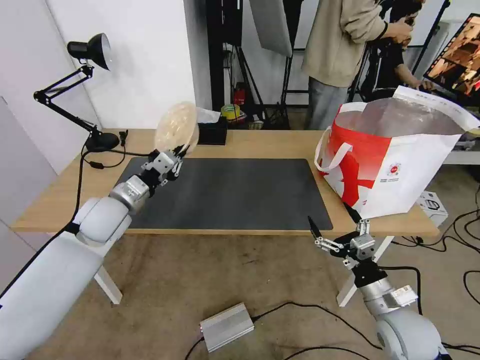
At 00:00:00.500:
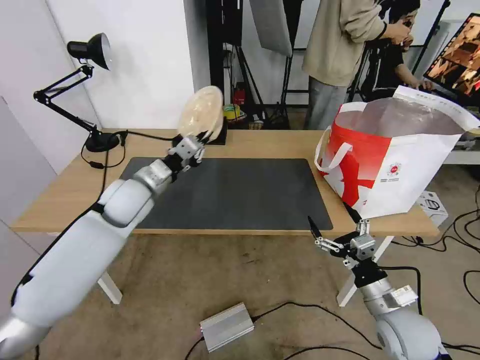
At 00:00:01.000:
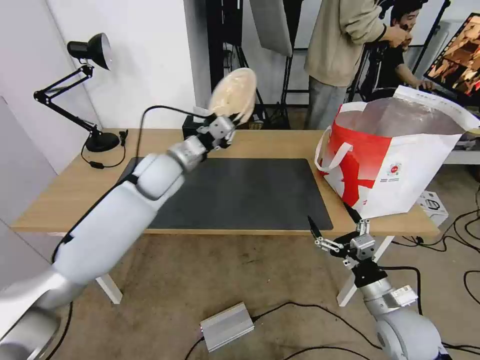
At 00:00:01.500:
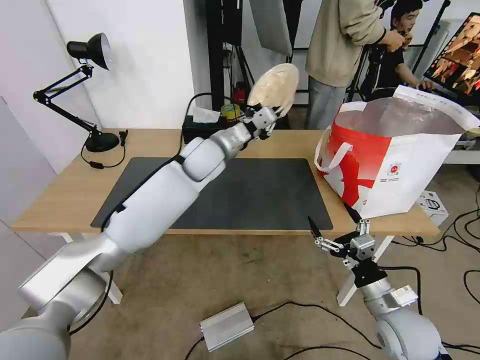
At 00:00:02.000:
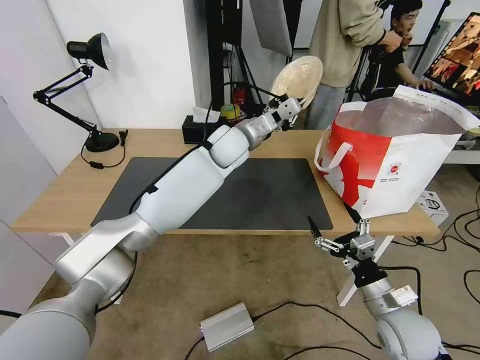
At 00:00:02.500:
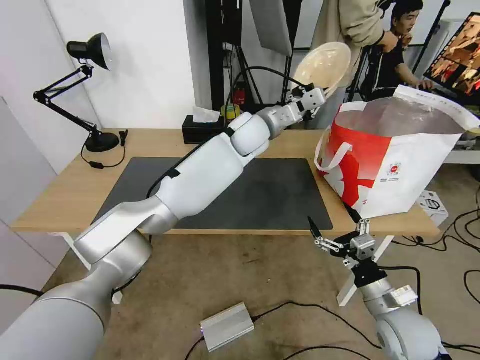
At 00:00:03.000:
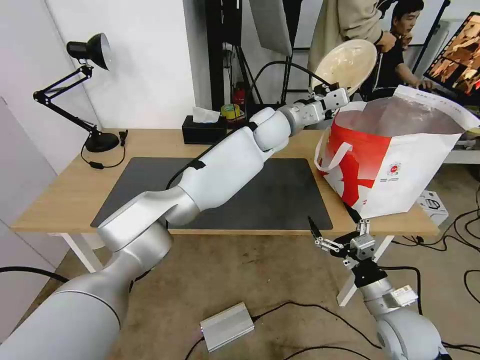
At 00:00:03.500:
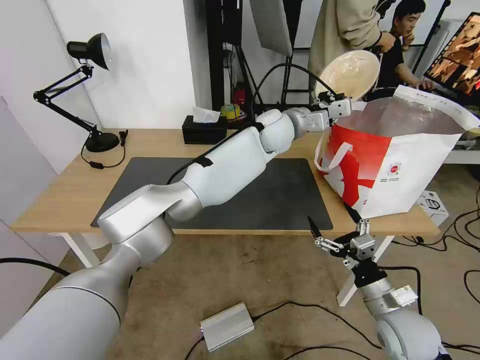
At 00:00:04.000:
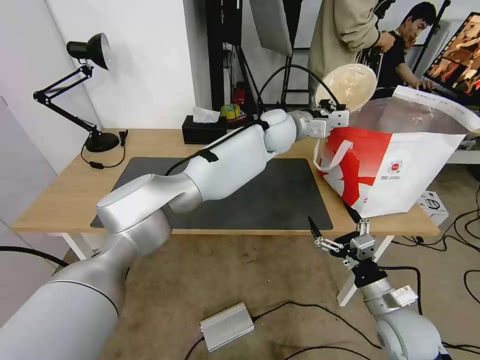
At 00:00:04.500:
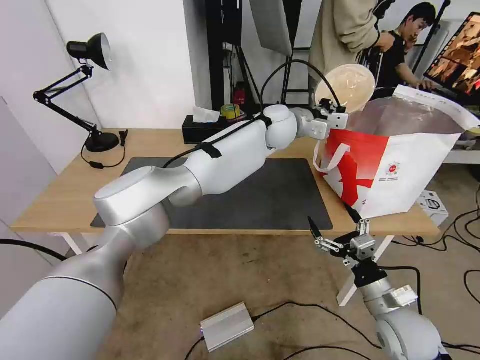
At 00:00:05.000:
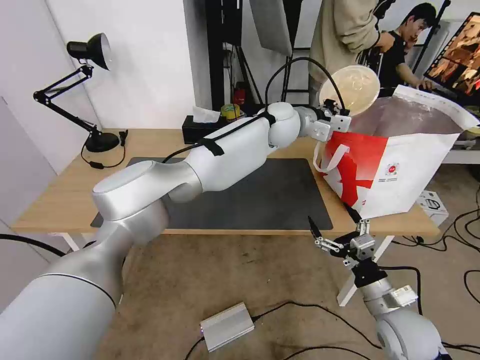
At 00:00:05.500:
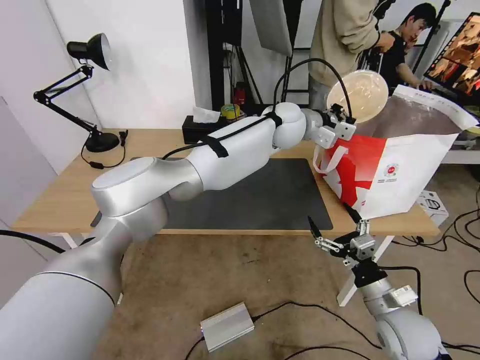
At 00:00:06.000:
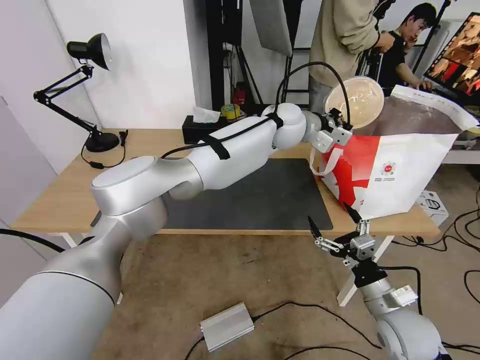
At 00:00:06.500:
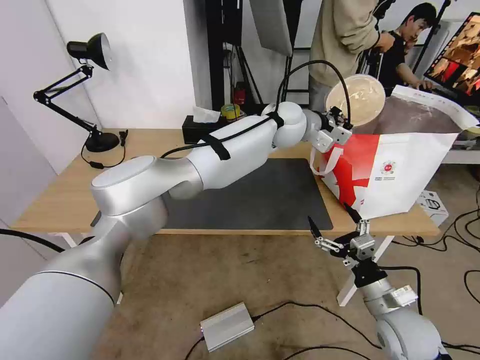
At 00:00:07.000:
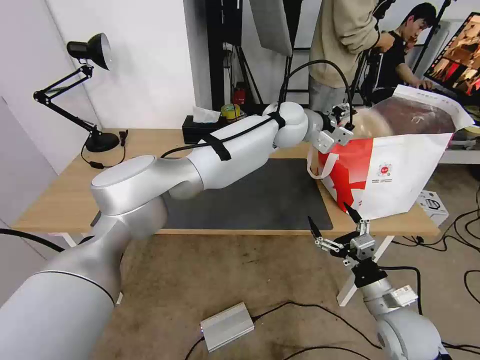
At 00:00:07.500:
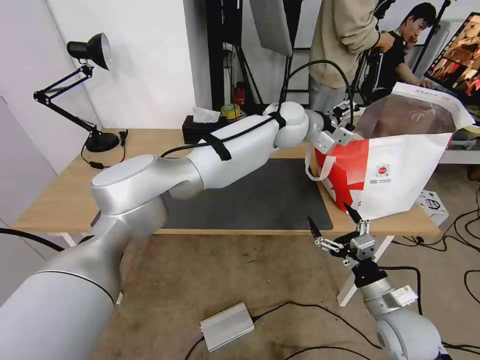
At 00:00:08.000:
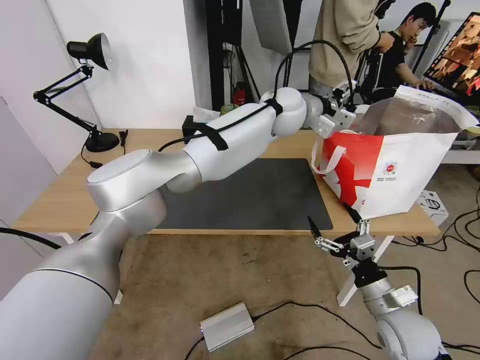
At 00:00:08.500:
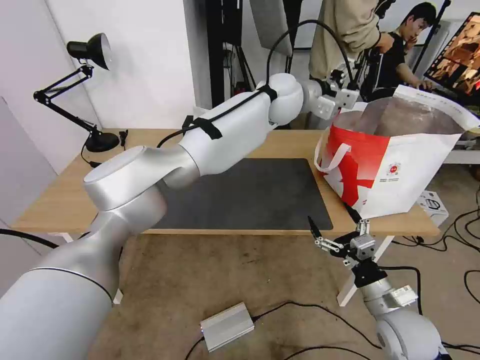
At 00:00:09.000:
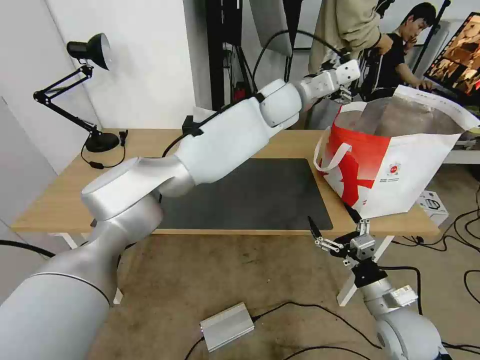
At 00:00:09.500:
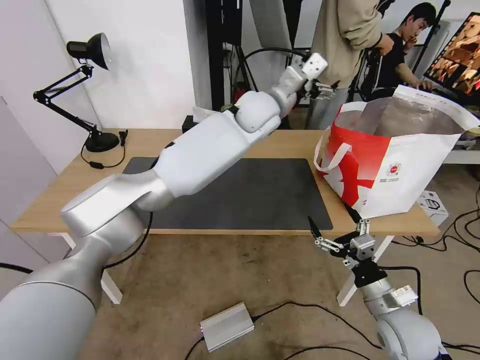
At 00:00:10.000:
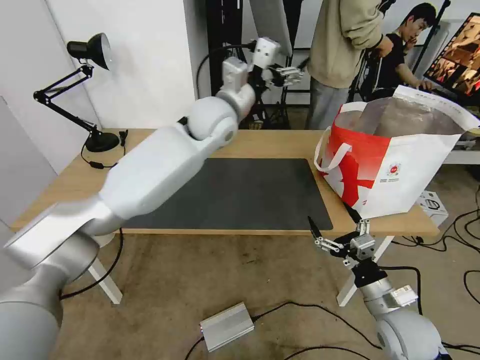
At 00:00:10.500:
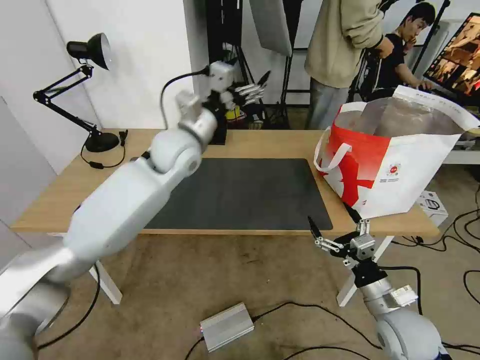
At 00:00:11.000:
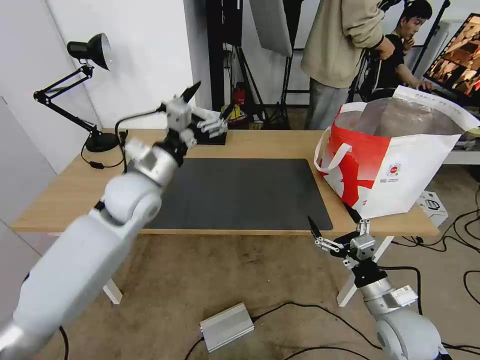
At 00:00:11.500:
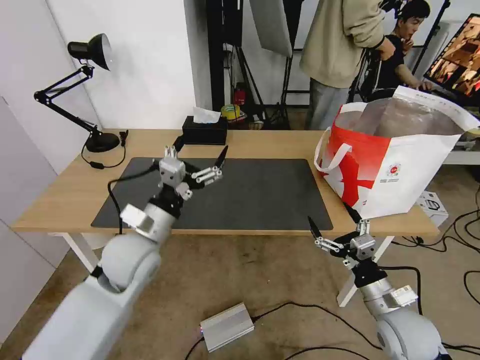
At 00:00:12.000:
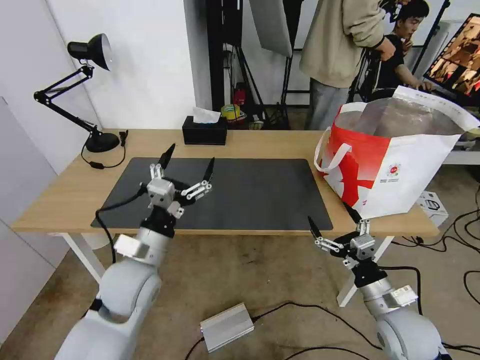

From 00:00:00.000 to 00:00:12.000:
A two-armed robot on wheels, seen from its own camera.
Task of the whole recording: Pick up the trash from the table and place it into the takeout bag.
From 00:00:00.000 to 00:00:02.000: The left gripper moves to the right and forward, roughly 30 cm.
From 00:00:02.000 to 00:00:04.000: The left gripper goes some 10 cm to the right.
From 00:00:06.000 to 00:00:08.000: The left gripper opens.
From 00:00:08.000 to 00:00:10.000: The left gripper moves to the left, some 15 cm.
From 00:00:10.000 to 00:00:12.000: The left gripper moves backward, downward and to the left, about 35 cm.

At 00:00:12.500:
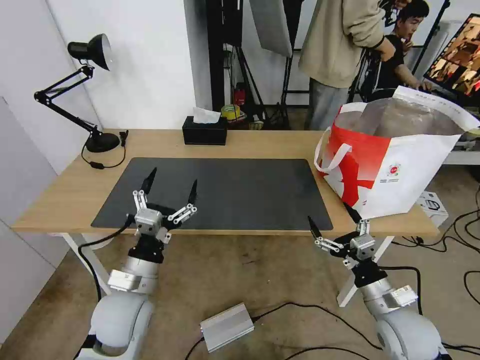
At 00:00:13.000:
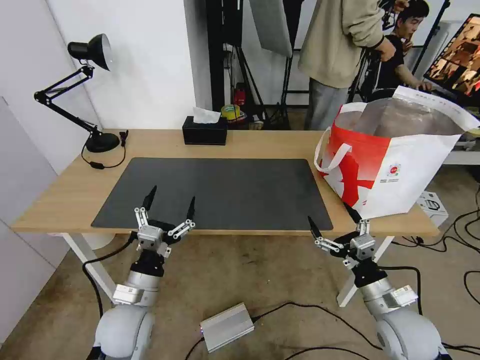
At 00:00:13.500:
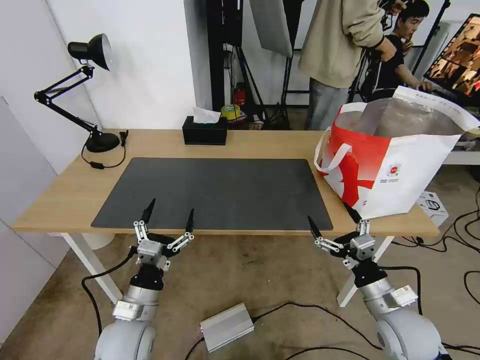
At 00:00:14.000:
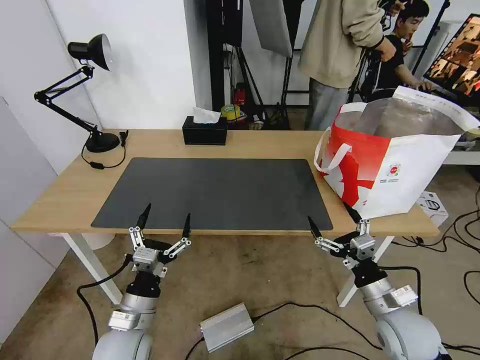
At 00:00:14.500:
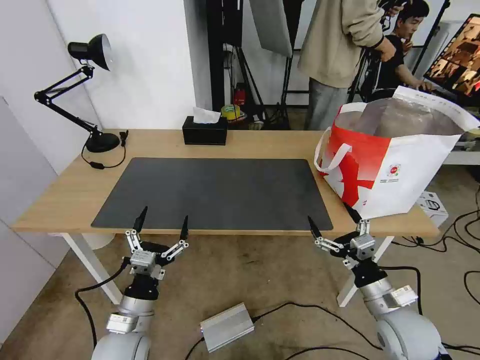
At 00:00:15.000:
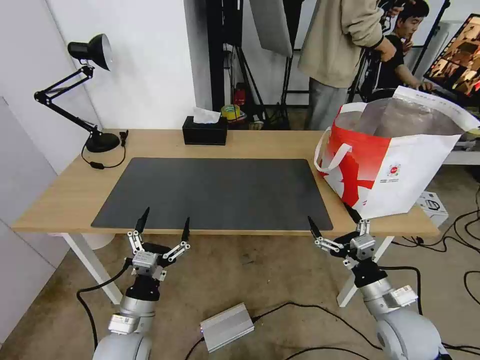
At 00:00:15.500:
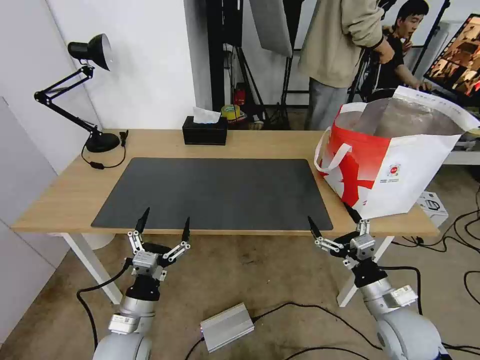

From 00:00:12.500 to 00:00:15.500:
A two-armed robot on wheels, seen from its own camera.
Task of the whole recording: Pick up the trash from the table and place it into the takeout bag.
From 00:00:12.500 to 00:00:14.000: The left gripper travels downward by about 5 cm.
From 00:00:14.000 to 00:00:15.500: Both grippers stay about where they are.

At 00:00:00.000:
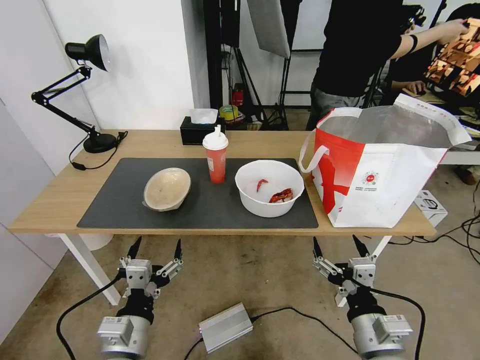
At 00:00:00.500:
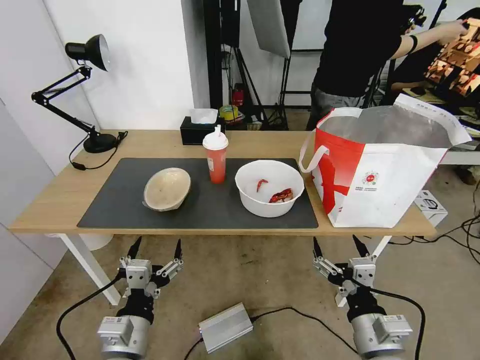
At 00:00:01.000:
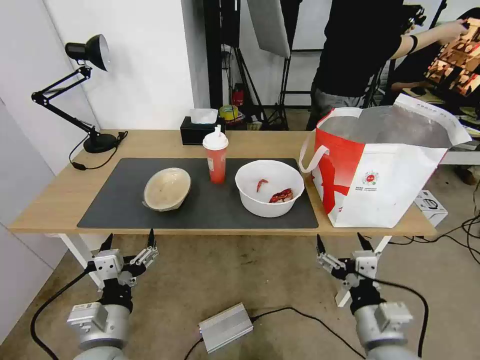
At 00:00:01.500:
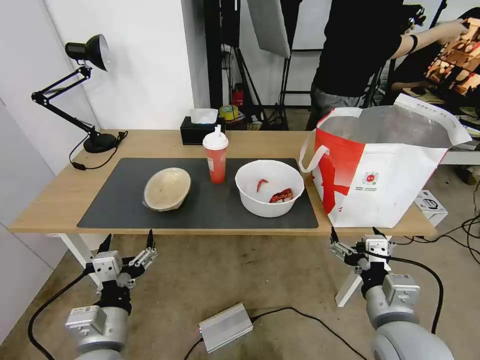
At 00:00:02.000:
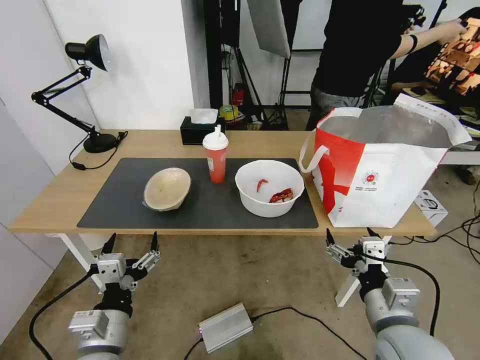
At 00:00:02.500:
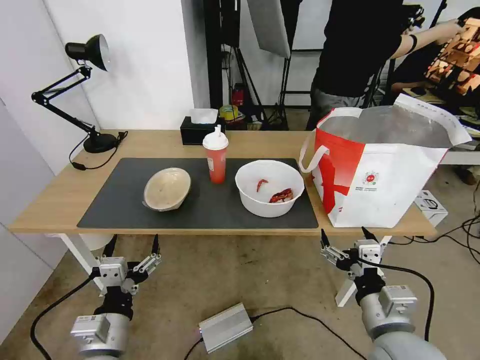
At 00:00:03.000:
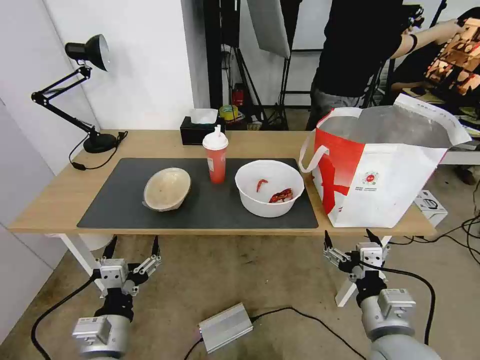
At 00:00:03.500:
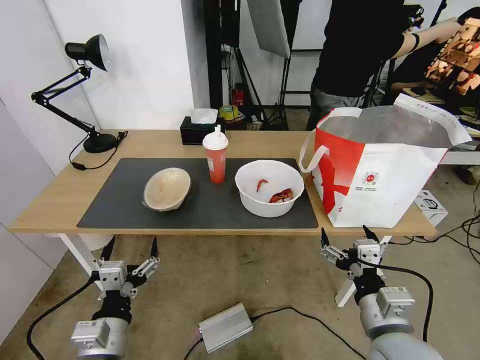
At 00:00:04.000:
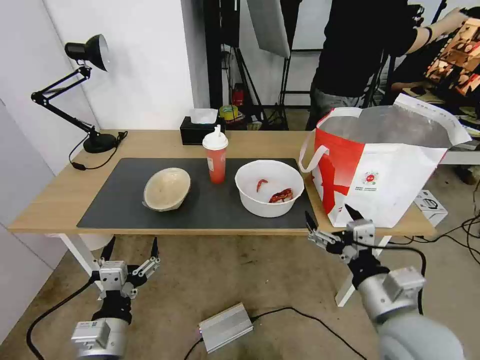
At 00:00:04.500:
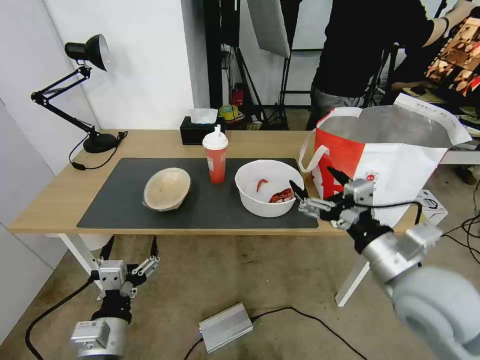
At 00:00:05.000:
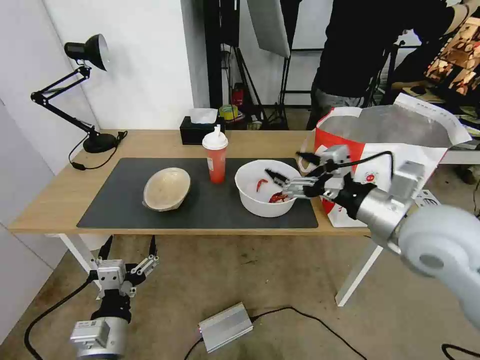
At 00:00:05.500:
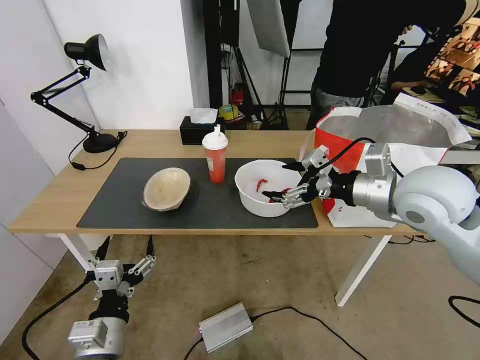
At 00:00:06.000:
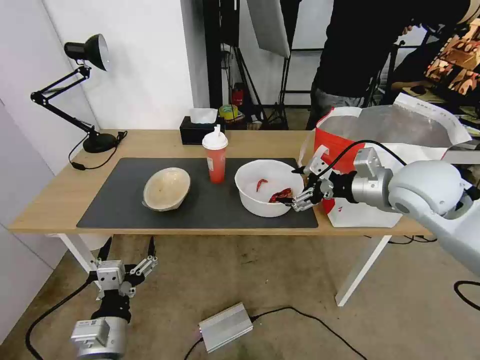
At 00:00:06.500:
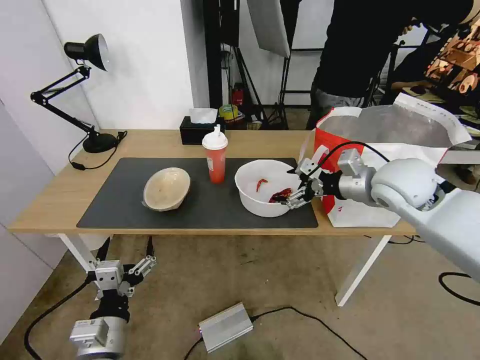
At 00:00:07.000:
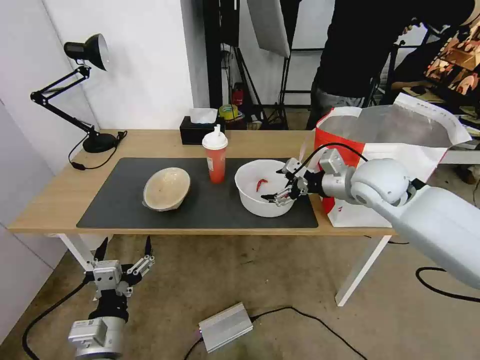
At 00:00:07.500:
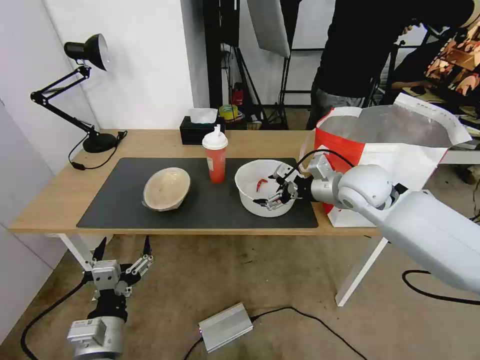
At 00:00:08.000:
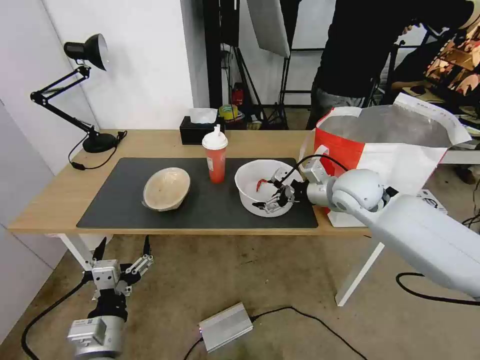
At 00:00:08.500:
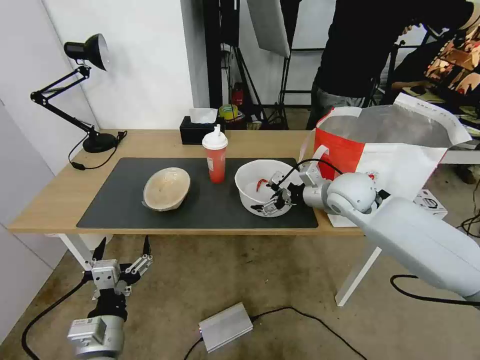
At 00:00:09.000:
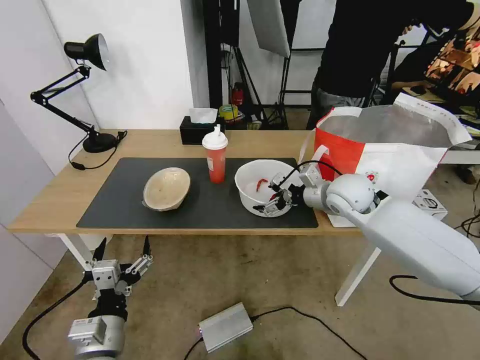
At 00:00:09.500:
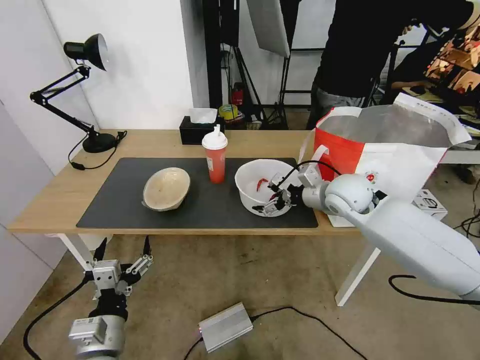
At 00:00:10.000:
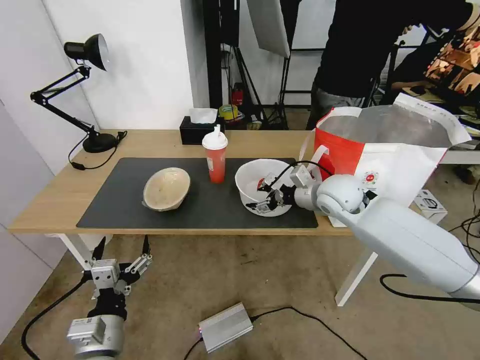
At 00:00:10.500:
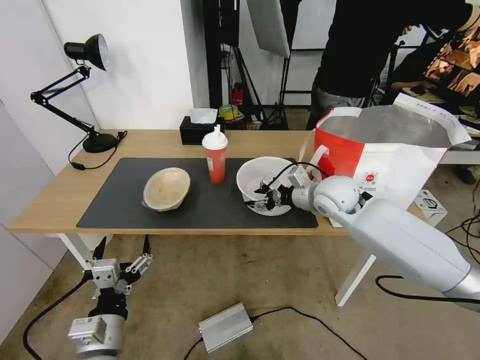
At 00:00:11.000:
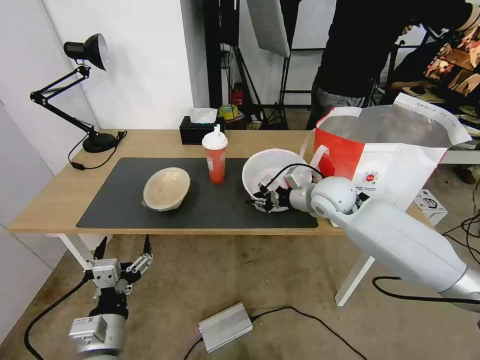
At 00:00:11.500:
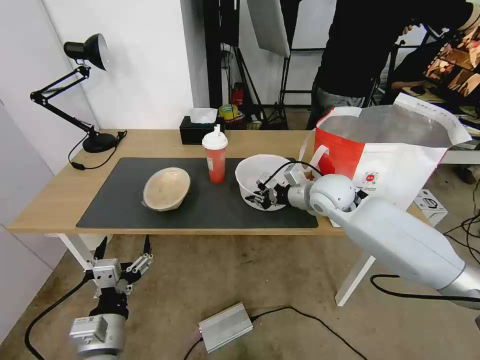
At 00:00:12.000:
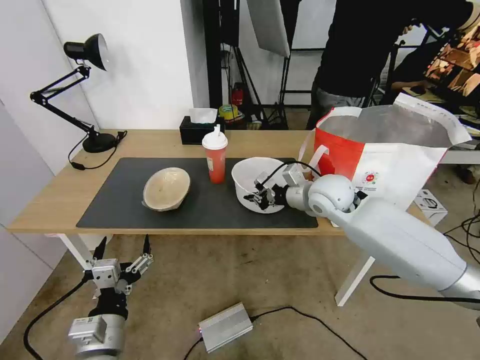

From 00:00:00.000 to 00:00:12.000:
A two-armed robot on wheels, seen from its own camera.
Task of the whole recording: Pick up the trash from the table and place it into the takeout bag.
From 00:00:02.000 to 00:00:04.000: The grippers make only small movements.
From 00:00:04.000 to 00:00:06.000: The right gripper shifts roughly 25 cm forward and upward.
From 00:00:06.000 to 00:00:08.000: The right gripper shifts about 10 cm downward, forward and to the left.
From 00:00:08.000 to 00:00:10.000: The grippers stay close to where they were, moving slightly.
From 00:00:10.000 to 00:00:12.000: The right gripper closes up.
